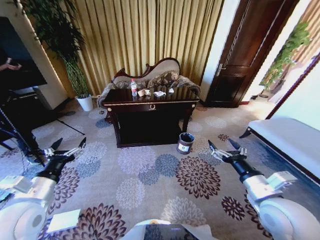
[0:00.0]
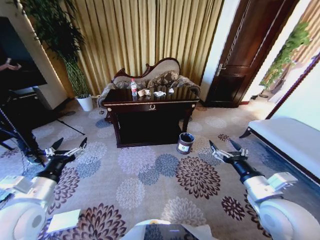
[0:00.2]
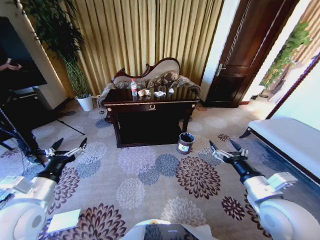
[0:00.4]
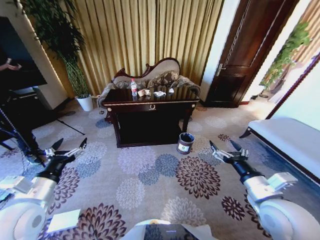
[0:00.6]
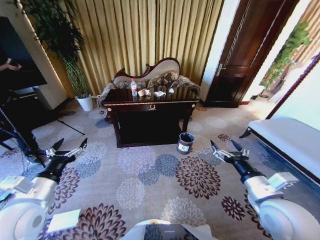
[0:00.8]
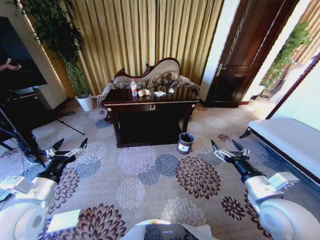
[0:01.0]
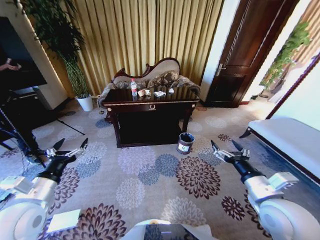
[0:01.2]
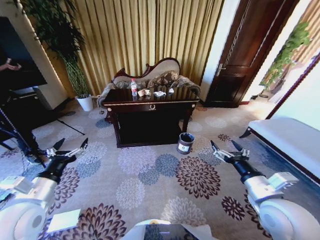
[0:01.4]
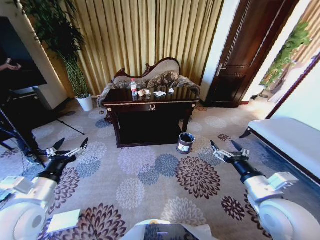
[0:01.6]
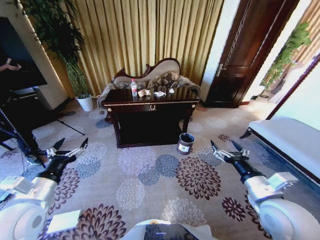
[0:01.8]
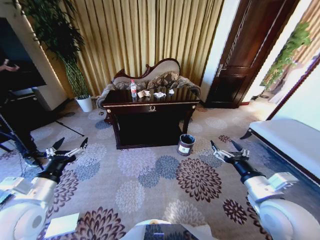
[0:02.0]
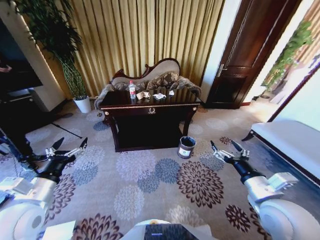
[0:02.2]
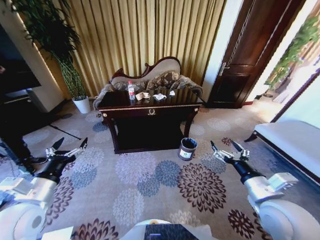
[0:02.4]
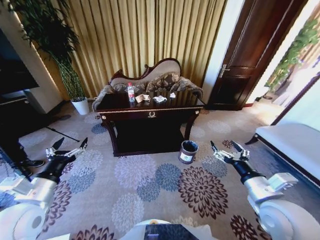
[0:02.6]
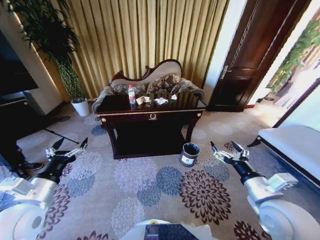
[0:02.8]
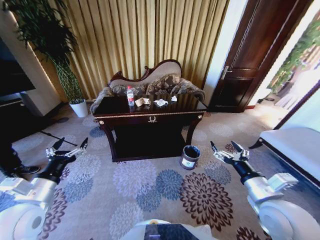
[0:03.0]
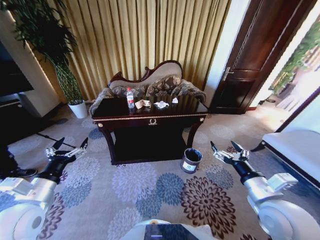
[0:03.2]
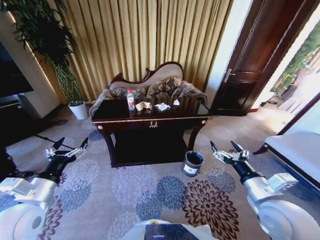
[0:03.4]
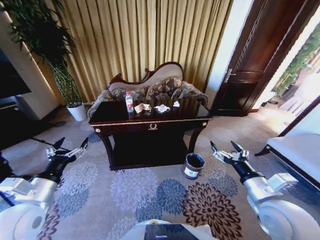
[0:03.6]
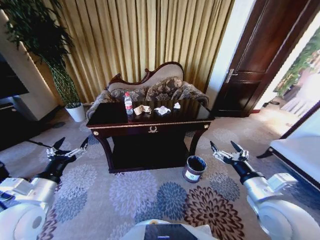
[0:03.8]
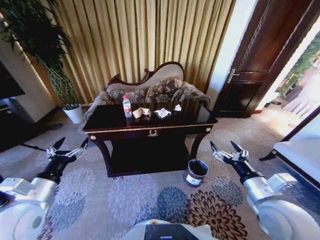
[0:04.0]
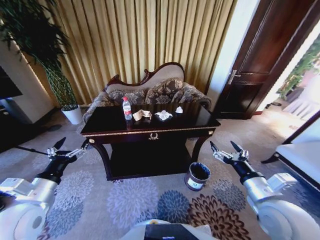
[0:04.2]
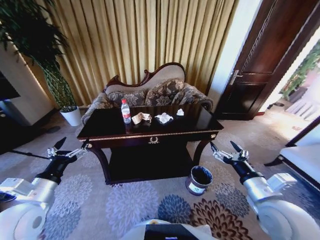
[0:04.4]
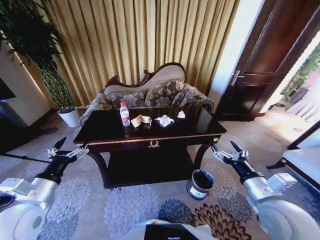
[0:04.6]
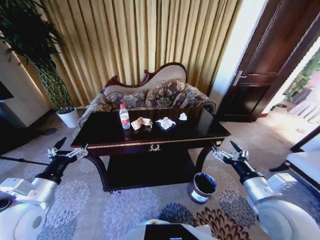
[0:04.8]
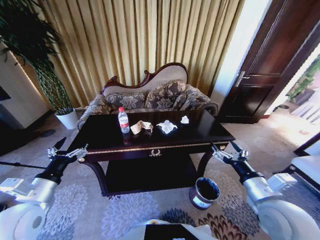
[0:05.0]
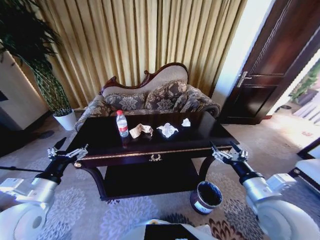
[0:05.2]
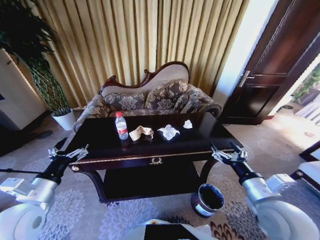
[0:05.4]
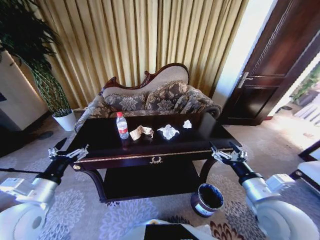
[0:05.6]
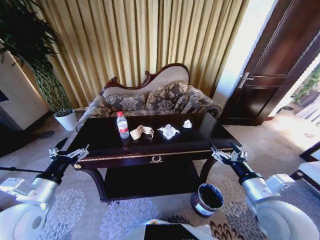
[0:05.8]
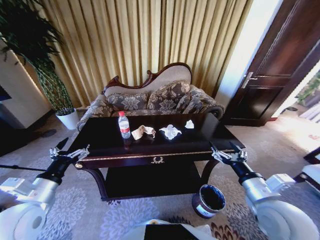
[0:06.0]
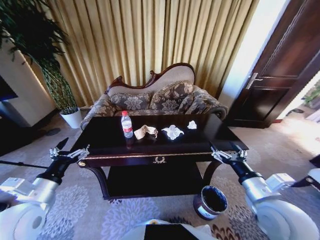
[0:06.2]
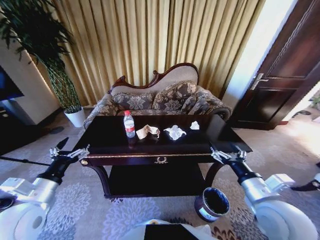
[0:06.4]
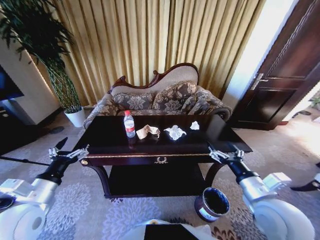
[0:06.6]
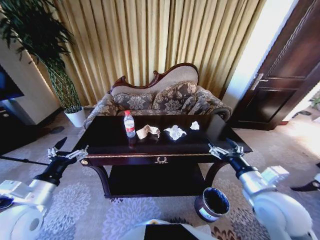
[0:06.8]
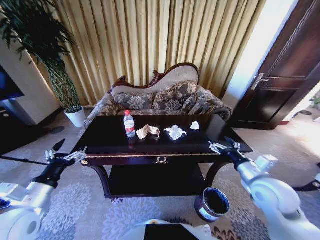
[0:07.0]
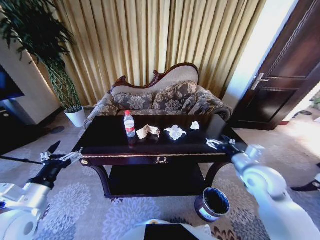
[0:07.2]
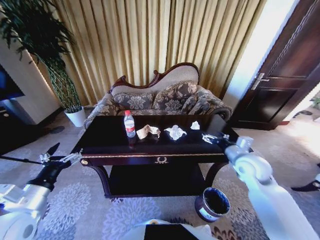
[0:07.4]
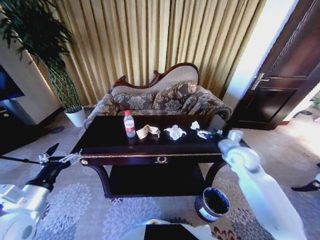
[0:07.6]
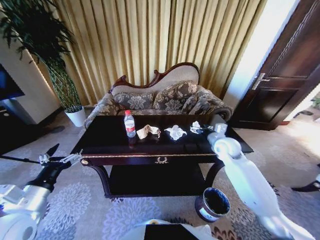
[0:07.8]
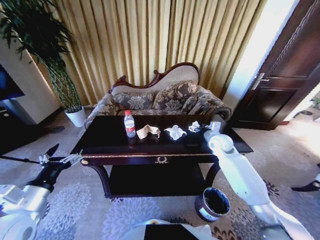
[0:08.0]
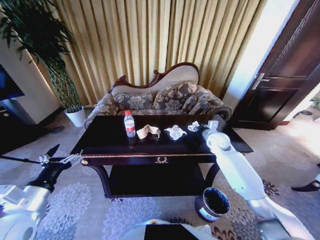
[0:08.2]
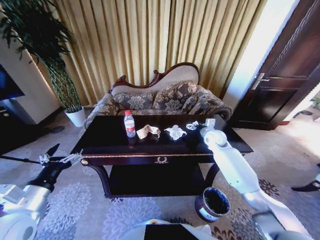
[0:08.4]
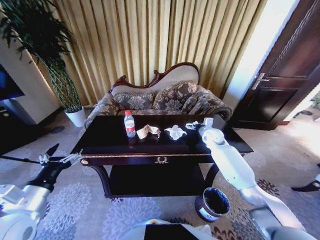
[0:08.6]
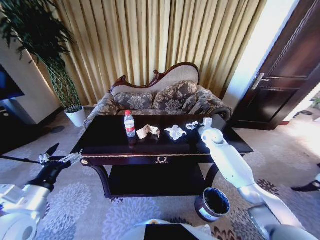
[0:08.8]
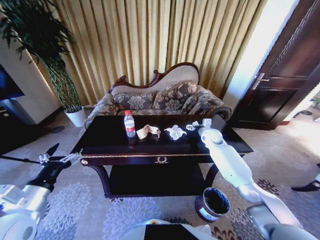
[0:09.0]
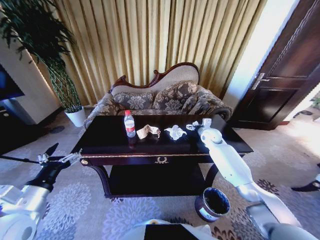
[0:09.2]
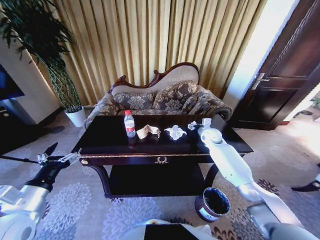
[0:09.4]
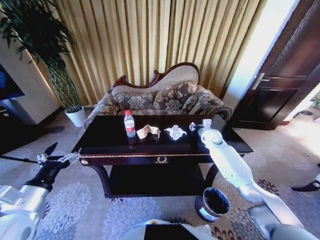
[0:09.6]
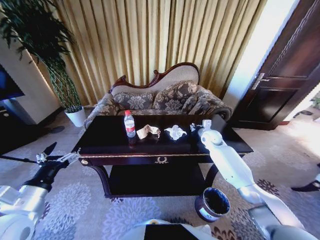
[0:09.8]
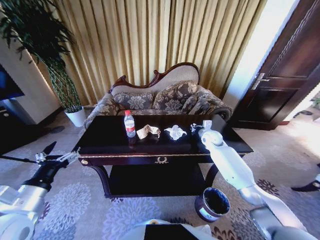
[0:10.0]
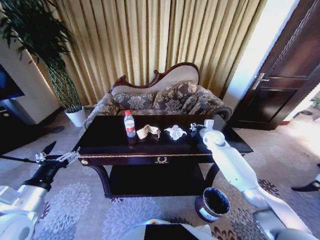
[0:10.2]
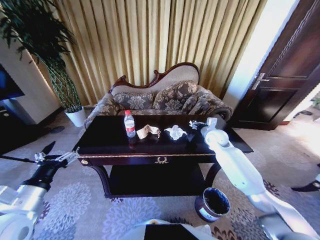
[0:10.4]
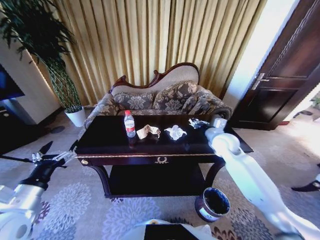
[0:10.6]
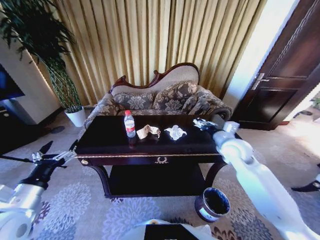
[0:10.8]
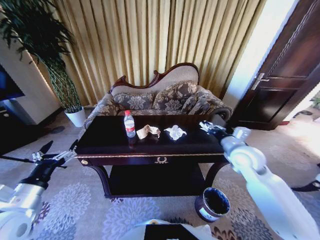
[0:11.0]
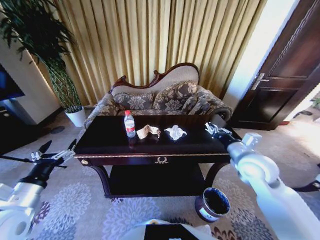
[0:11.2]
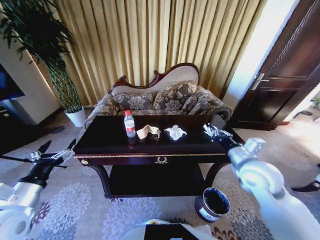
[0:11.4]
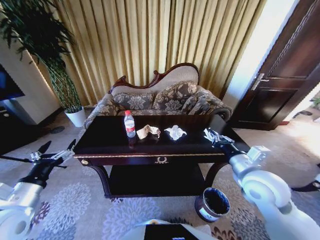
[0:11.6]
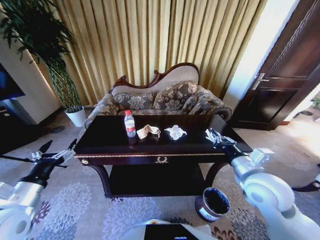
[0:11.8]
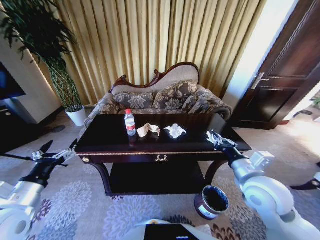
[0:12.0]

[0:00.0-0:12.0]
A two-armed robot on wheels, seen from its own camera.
Task of the whole recording: Move to the front of the table and place the trash on the table into the trash bin.
0:06.0 to 0:07.6: The right gripper goes roughly 20 cm forward.
0:07.6 to 0:09.0: The right gripper shifts about 15 cm forward.
0:09.0 to 0:10.4: The right gripper changes place by about 5 cm, and closes.
0:10.4 to 0:12.0: The right gripper moves backward, roughly 25 cm.

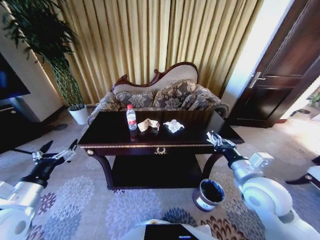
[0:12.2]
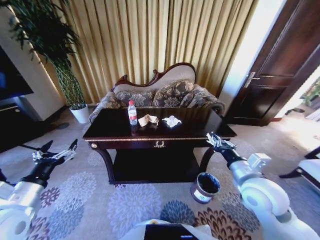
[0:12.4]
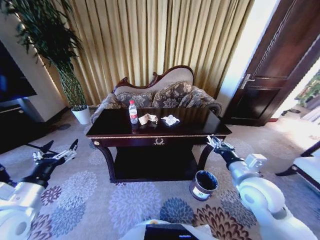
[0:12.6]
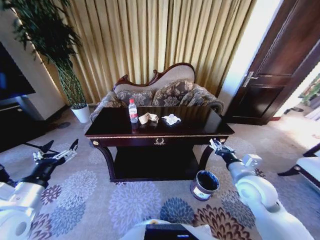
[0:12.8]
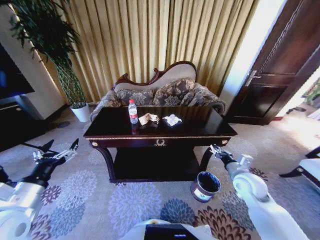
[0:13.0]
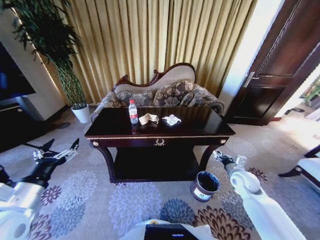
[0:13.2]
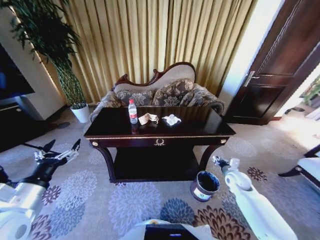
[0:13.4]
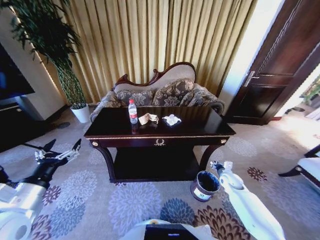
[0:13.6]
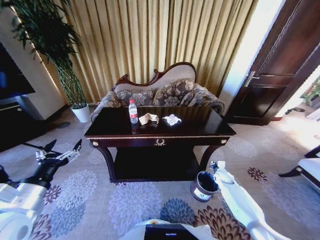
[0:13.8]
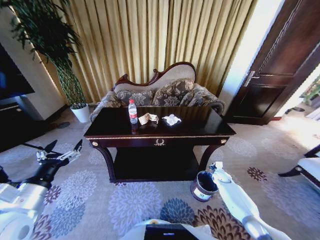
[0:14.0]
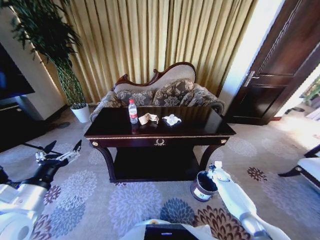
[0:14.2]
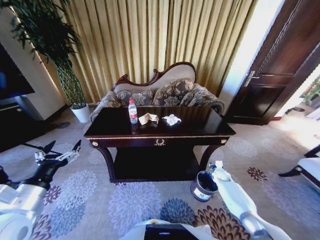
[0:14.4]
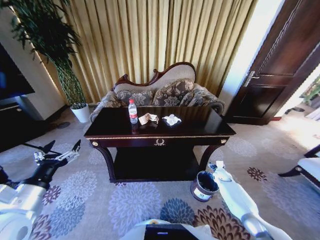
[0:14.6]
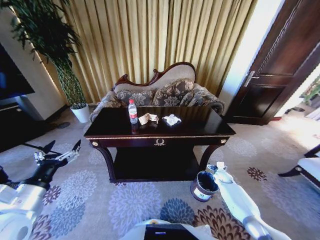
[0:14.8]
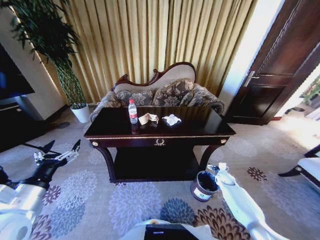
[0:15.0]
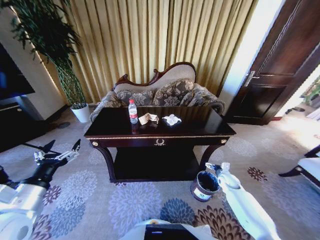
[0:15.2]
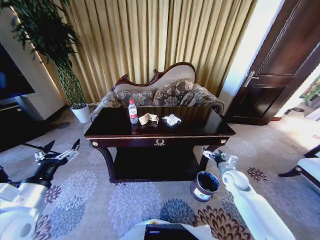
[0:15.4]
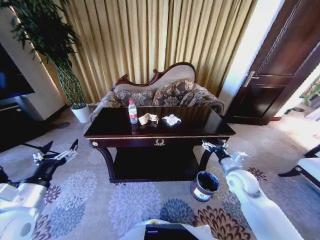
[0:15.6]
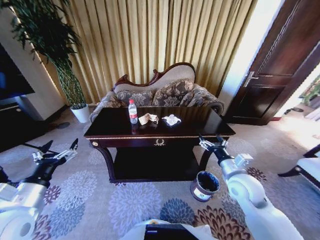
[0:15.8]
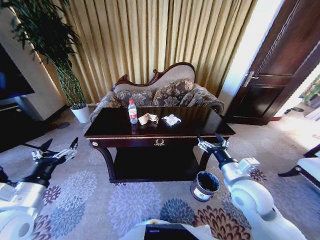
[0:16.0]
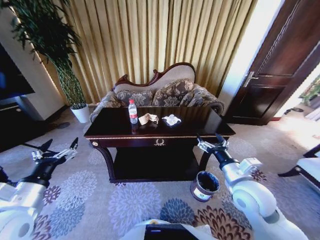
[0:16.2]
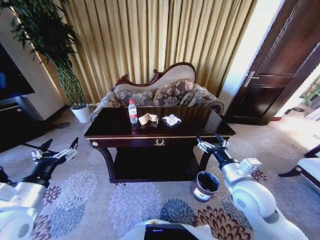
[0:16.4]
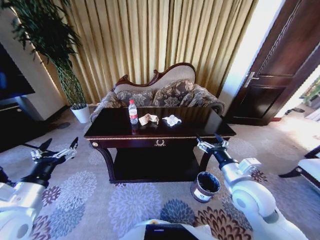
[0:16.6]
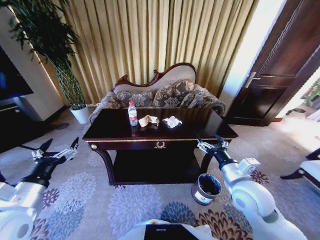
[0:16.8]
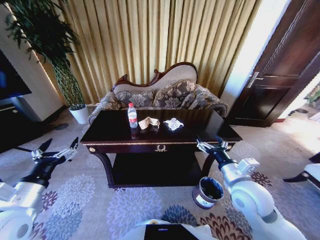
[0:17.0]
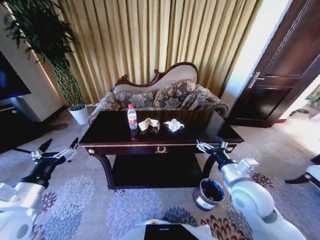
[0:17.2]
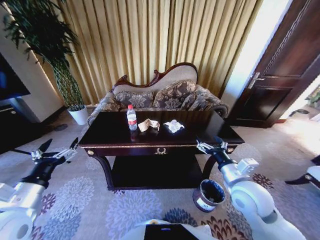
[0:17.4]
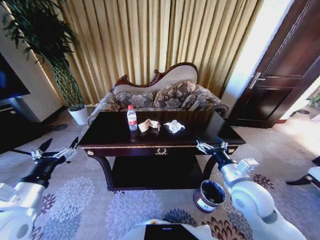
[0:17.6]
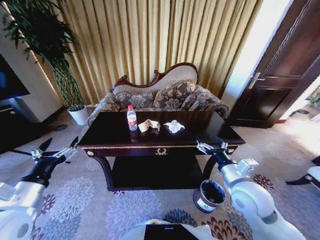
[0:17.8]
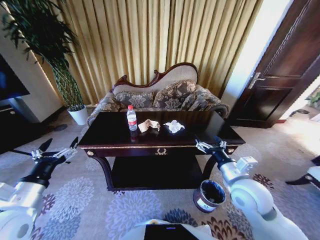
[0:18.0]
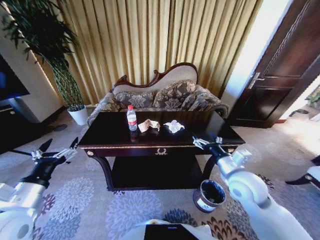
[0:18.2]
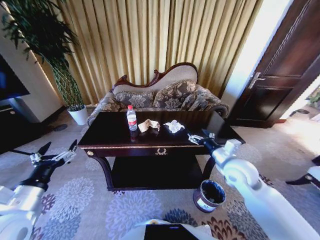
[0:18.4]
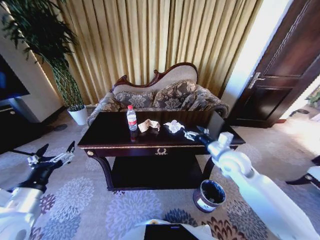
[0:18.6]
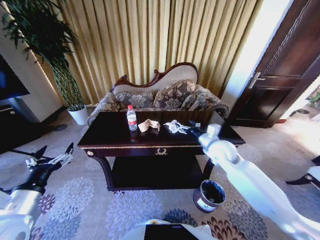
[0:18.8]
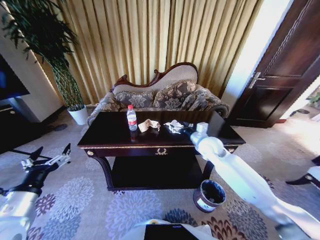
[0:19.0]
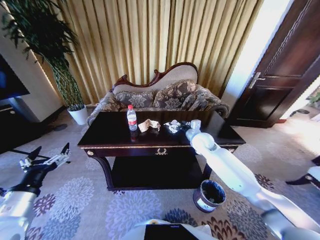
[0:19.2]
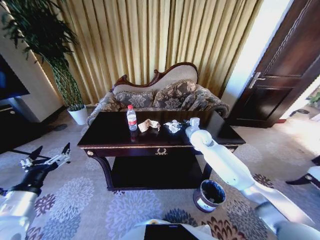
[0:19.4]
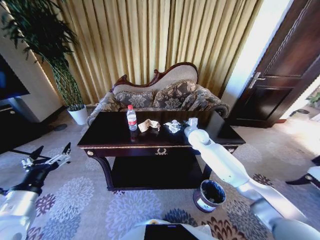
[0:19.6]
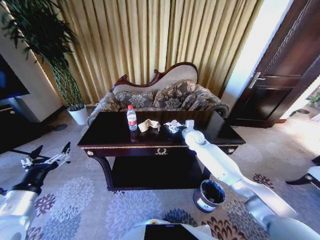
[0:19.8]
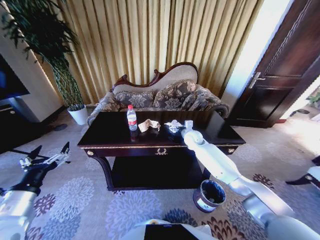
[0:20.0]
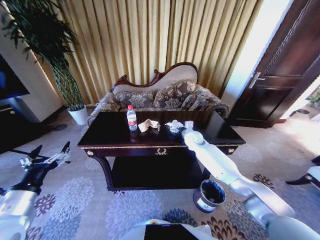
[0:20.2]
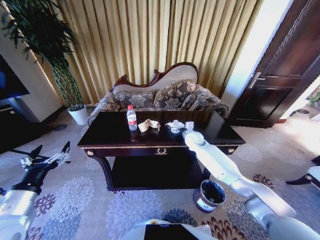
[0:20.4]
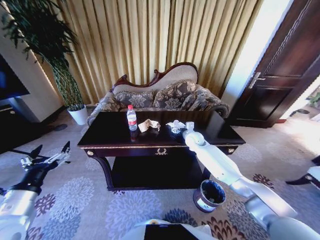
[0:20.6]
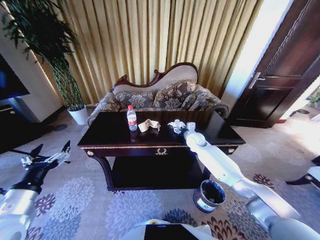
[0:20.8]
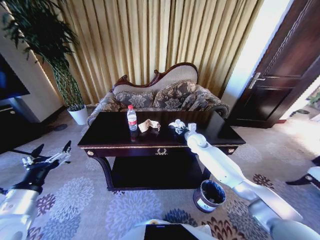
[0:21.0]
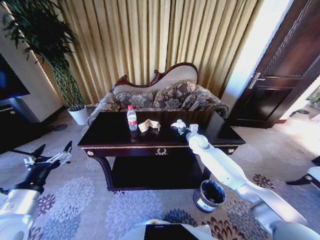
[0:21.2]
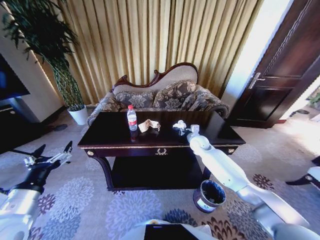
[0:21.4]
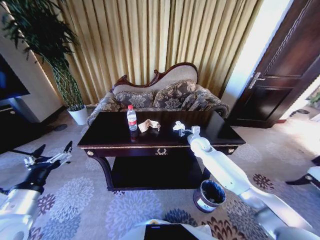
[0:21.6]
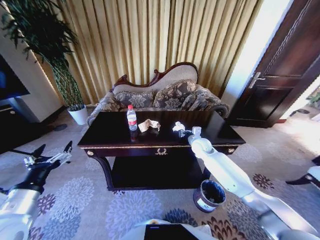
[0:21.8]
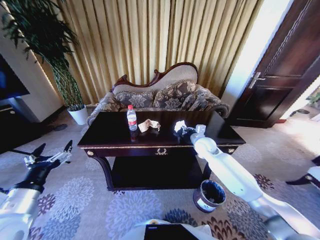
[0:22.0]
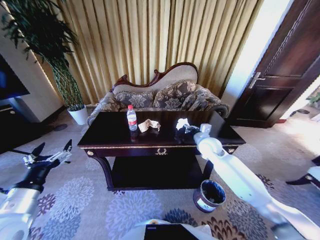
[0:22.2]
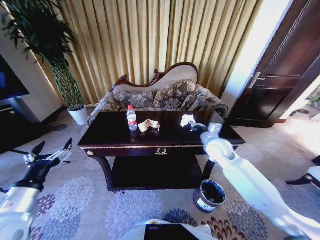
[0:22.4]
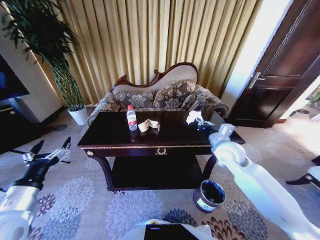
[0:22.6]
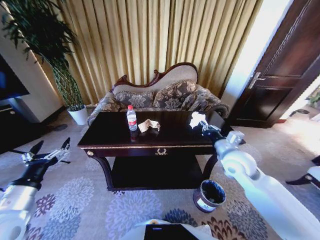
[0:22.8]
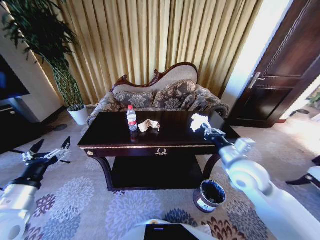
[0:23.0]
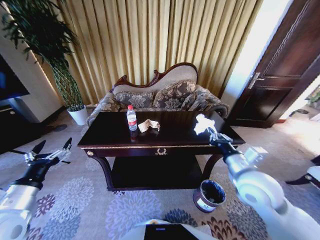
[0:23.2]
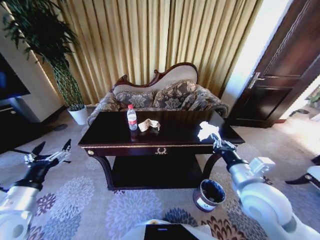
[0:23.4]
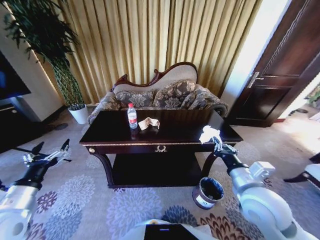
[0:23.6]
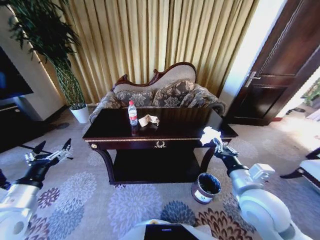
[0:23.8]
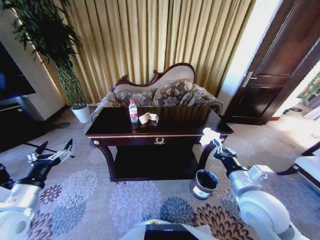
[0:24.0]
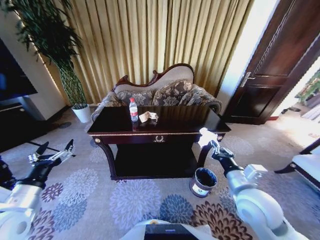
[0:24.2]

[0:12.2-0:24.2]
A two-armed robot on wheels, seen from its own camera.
Task of the whole recording: Move to the front of the table and place the trash on the table into the trash bin.
0:12.2 to 0:13.8: The right gripper goes roughly 35 cm downward and forward.
0:13.8 to 0:15.2: The right gripper ends up about 5 cm from where it was, and opens up.
0:15.2 to 0:16.6: The right gripper goes roughly 30 cm upward, to the left and backward.
0:18.2 to 0:19.8: The right gripper heads forward, covering some 25 cm.
0:19.8 to 0:21.2: The right gripper closes.
0:21.2 to 0:22.6: The right gripper heads backward and upward, covering some 15 cm, and closes.
0:22.6 to 0:24.2: The right gripper shifts some 15 cm backward.
